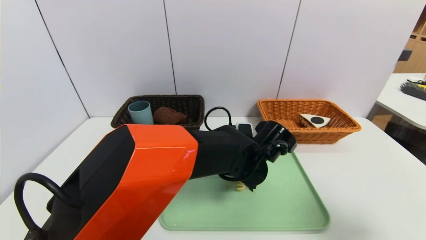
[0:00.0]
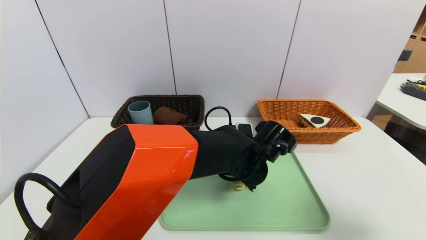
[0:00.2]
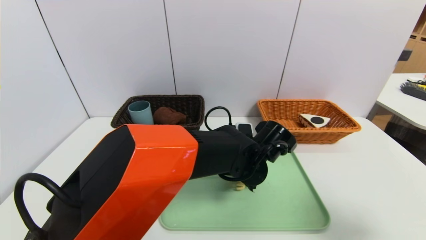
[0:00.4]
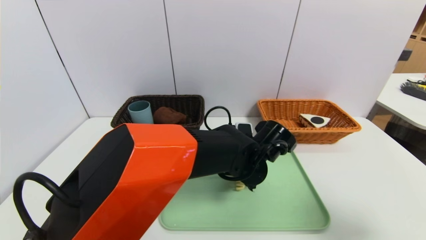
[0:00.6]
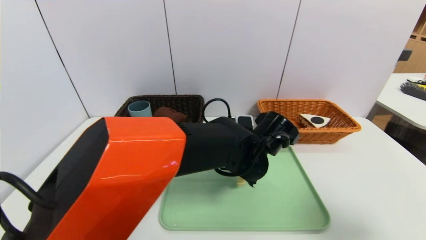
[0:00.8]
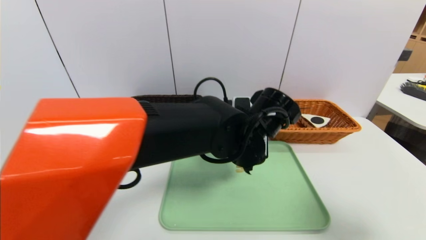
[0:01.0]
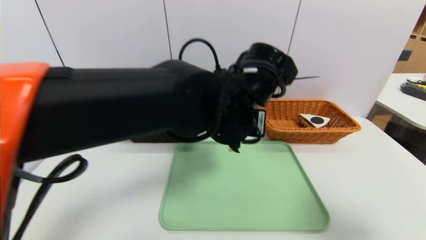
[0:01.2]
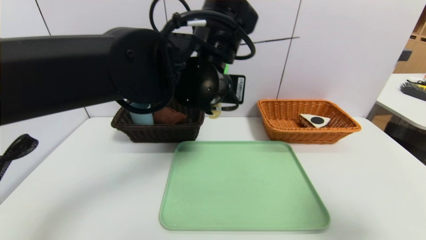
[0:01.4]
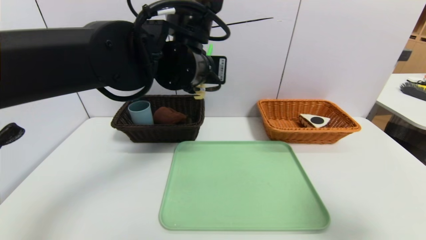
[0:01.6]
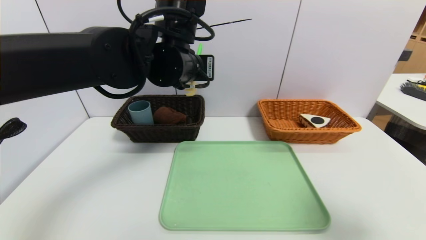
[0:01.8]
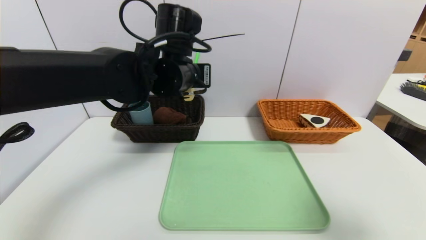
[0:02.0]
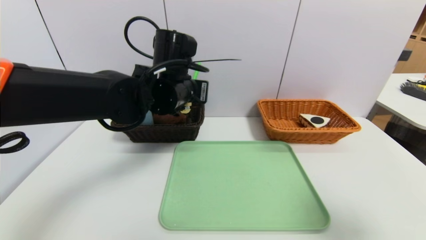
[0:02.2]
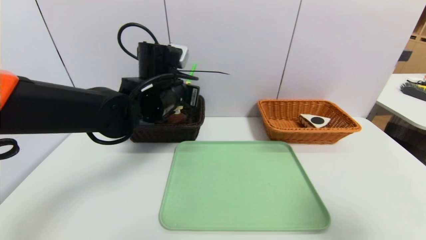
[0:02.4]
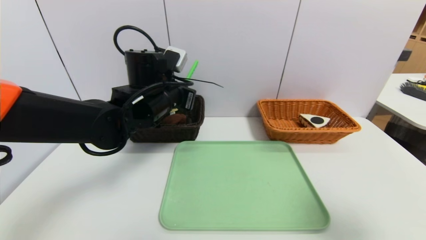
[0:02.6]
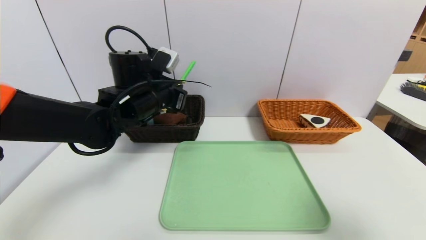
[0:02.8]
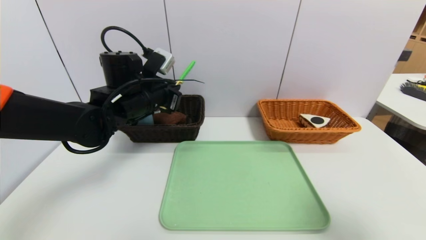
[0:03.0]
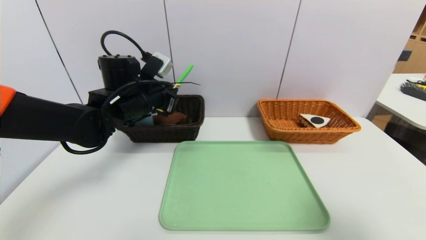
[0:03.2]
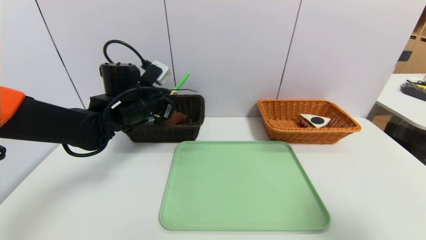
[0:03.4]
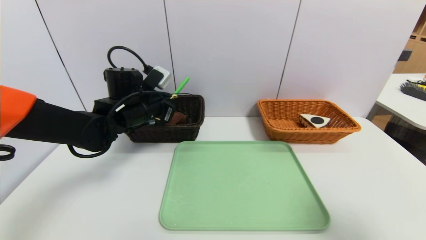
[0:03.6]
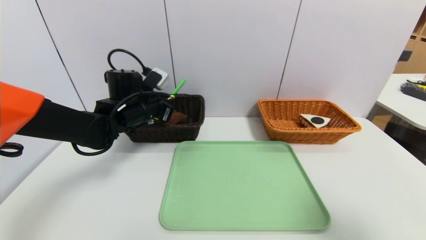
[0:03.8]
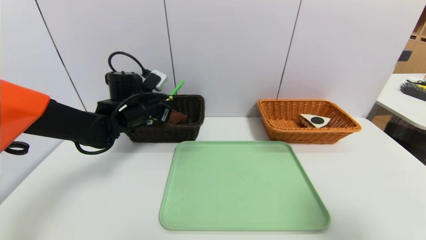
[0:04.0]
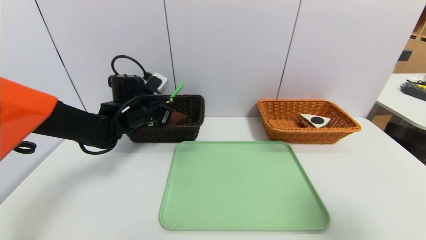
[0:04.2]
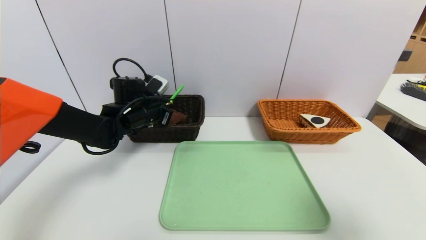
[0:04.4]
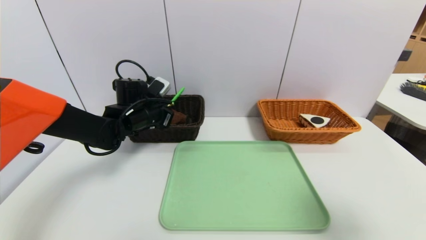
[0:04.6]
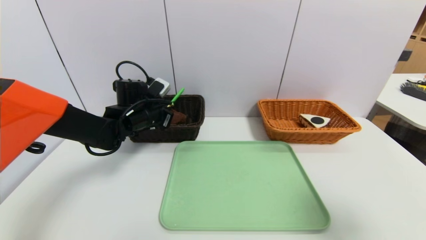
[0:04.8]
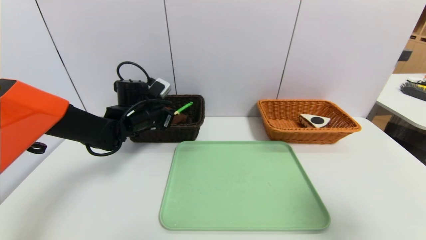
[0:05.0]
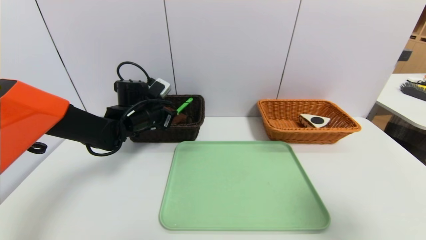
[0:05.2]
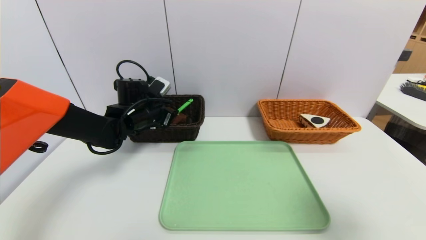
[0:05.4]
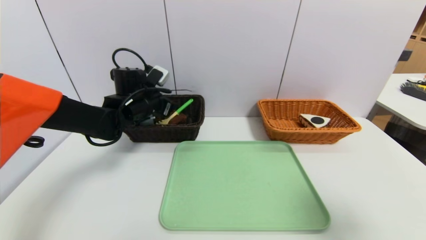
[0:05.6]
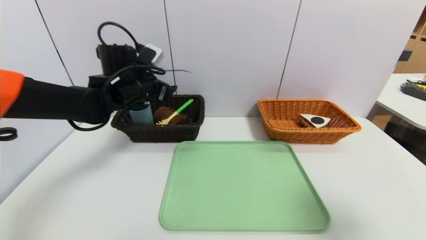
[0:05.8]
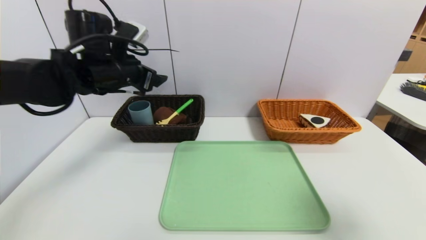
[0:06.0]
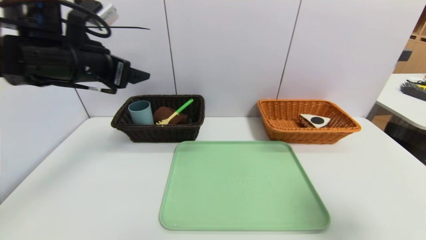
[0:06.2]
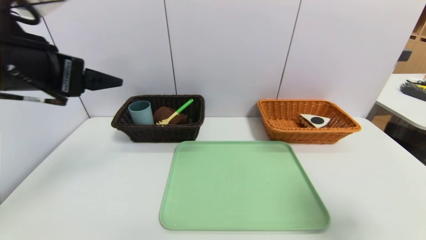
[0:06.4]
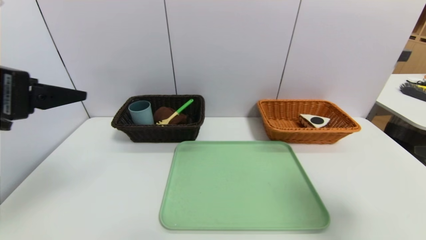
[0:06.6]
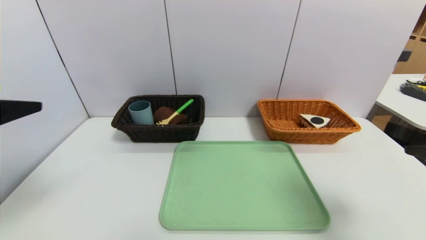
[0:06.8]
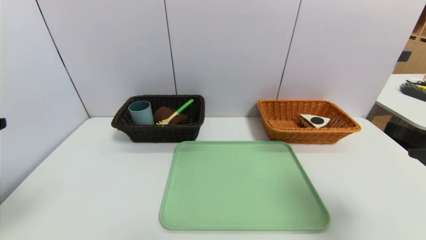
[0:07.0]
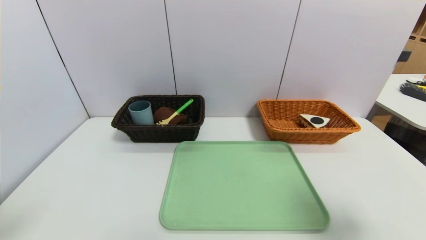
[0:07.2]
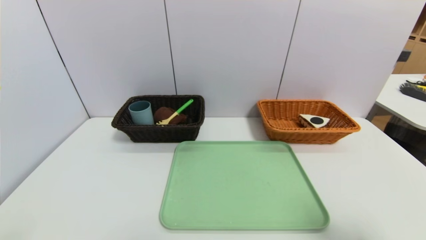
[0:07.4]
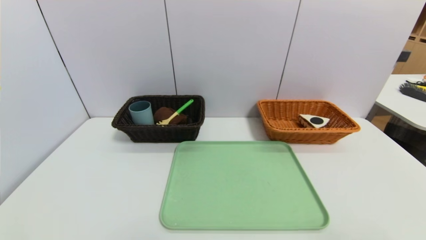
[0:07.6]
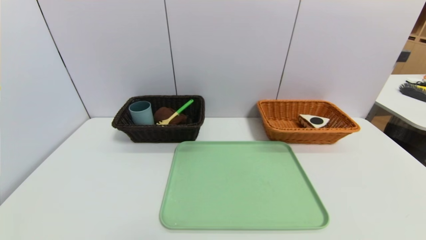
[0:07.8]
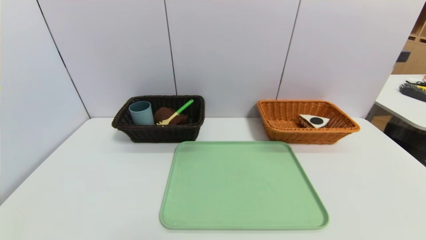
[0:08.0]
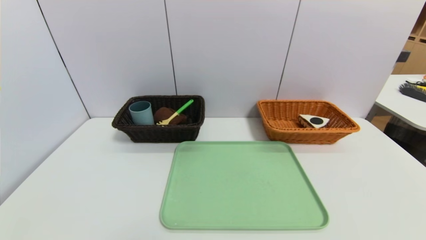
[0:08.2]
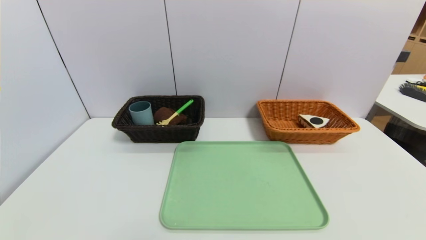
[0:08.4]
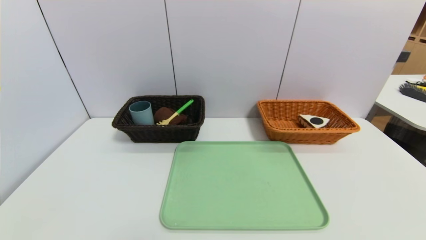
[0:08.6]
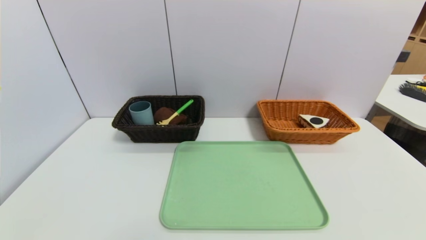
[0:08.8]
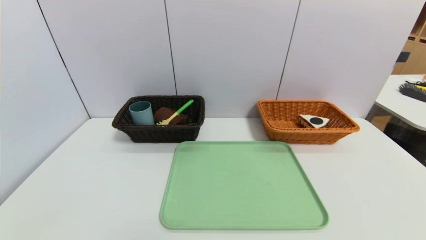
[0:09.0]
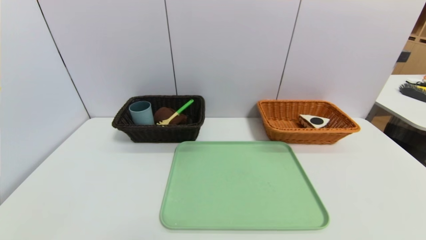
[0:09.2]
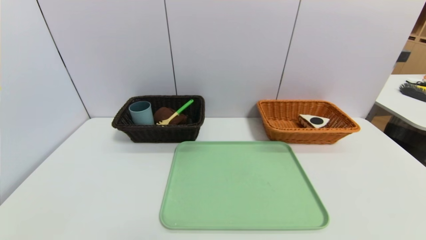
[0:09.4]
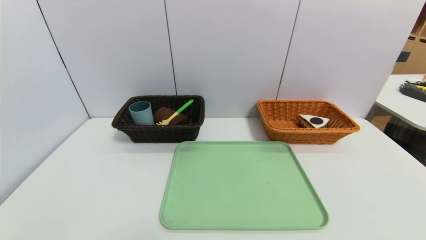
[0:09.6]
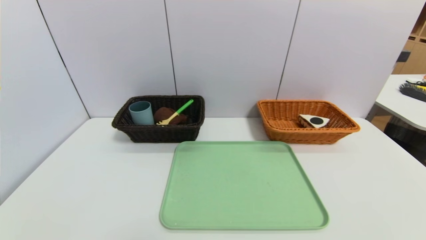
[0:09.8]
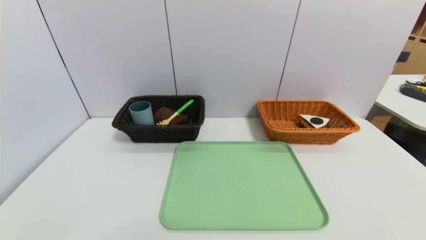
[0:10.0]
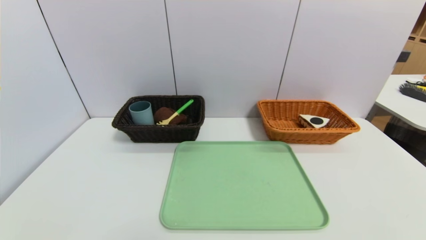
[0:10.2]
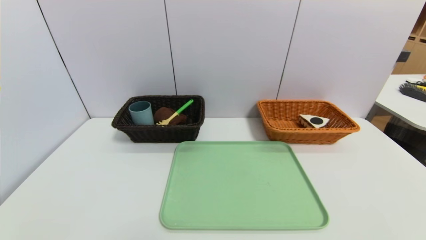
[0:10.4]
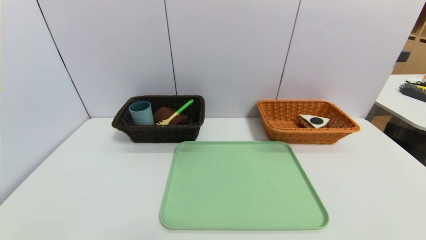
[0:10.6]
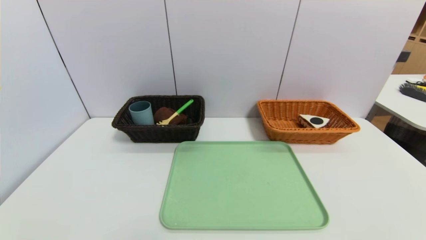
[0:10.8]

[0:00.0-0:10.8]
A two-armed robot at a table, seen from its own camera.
Task of the whole recording: place the food in the right basket with the right gripper, and place the non food items in the left basket with the left gripper.
Step, 0:00.0 to 0:05.4: Grasp the back scratcher and put it in the left basket.
0:00.0 to 0:01.6: The left gripper is displaced upward and to the left by roughly 25 cm.
0:01.6 to 0:03.0: The left gripper moves to the left, downward and forward, some 15 cm.
0:03.0 to 0:04.6: The left gripper travels downward by some 5 cm.
0:04.6 to 0:06.2: The left gripper moves upward and backward, approximately 20 cm, and opens.
0:06.2 to 0:07.8: The right gripper heads backward and downward, covering some 15 cm. The left gripper heads backward, covering roughly 35 cm.
